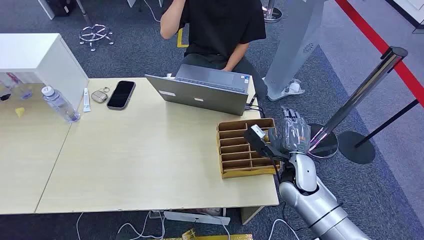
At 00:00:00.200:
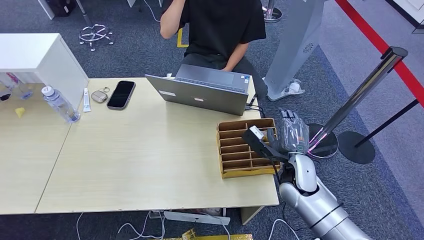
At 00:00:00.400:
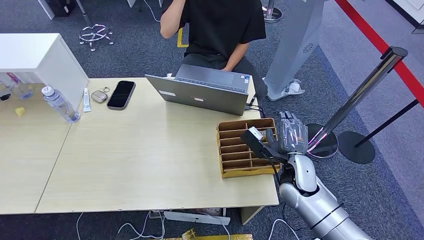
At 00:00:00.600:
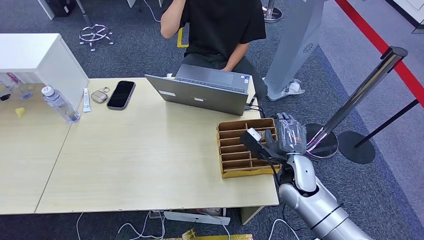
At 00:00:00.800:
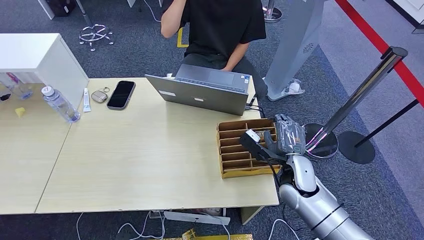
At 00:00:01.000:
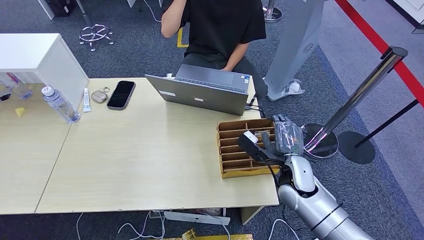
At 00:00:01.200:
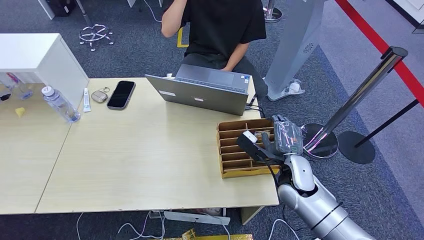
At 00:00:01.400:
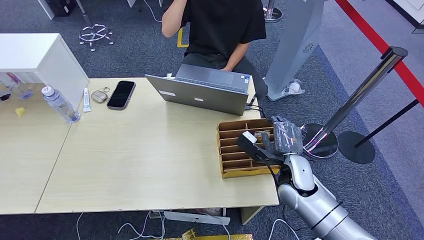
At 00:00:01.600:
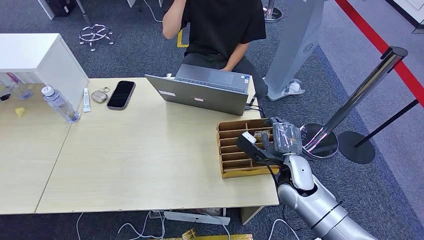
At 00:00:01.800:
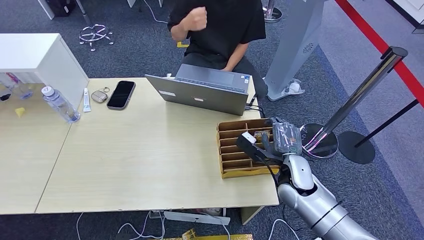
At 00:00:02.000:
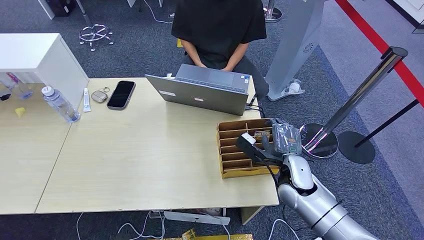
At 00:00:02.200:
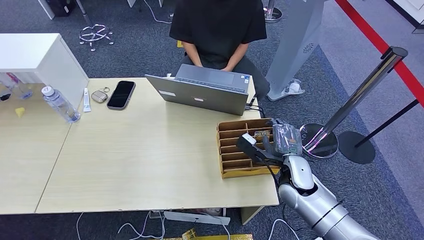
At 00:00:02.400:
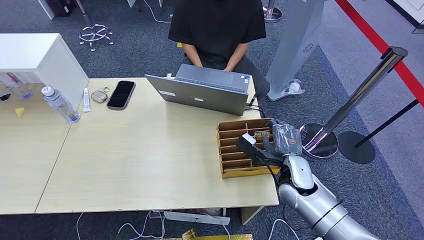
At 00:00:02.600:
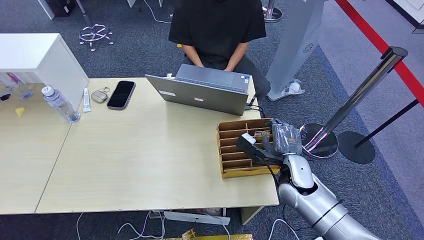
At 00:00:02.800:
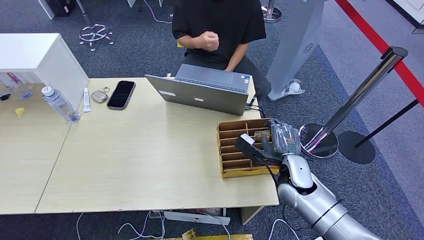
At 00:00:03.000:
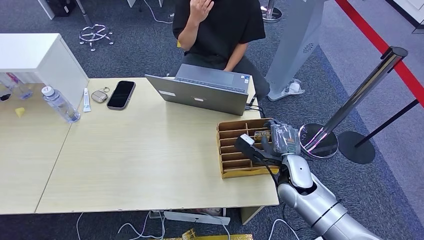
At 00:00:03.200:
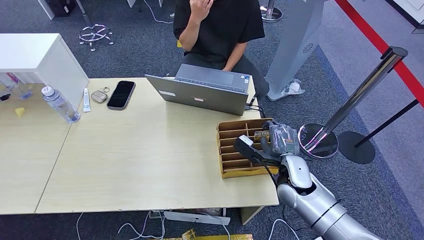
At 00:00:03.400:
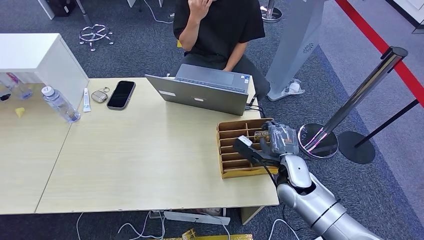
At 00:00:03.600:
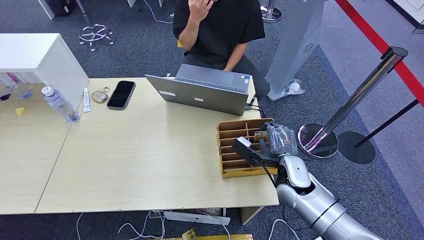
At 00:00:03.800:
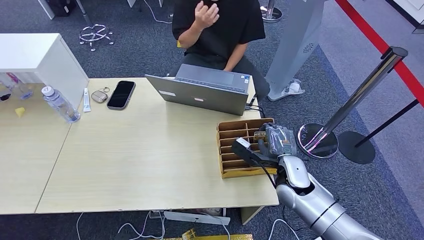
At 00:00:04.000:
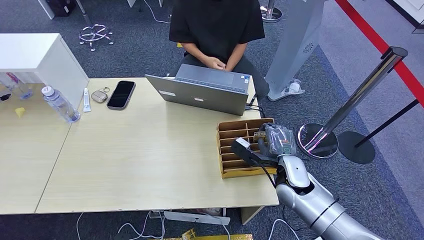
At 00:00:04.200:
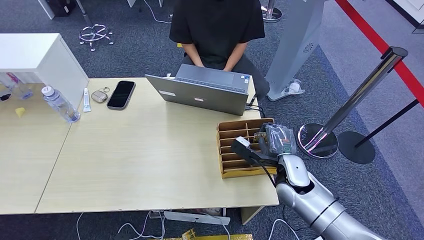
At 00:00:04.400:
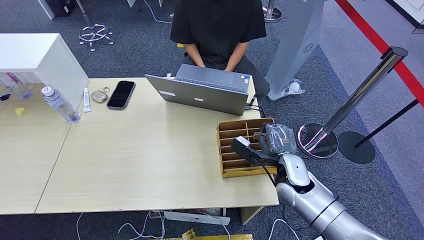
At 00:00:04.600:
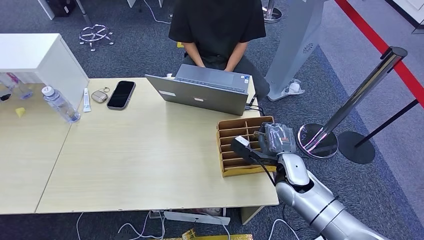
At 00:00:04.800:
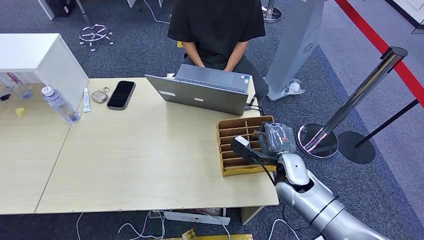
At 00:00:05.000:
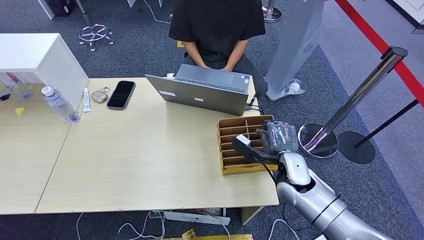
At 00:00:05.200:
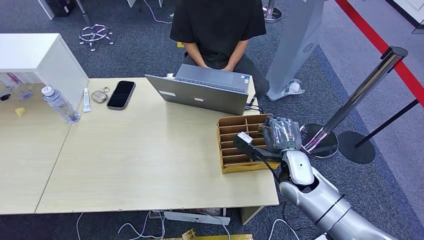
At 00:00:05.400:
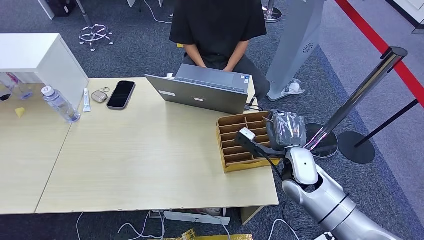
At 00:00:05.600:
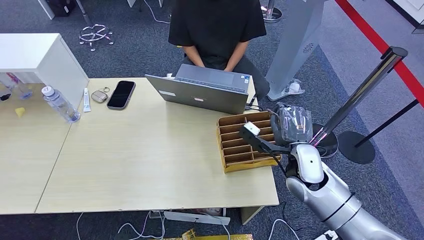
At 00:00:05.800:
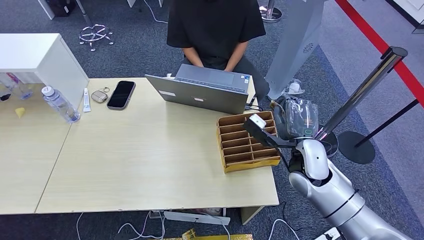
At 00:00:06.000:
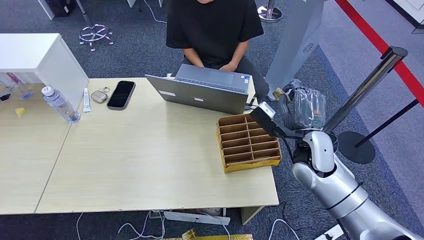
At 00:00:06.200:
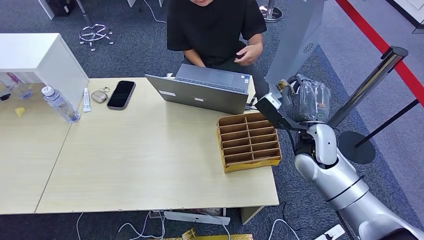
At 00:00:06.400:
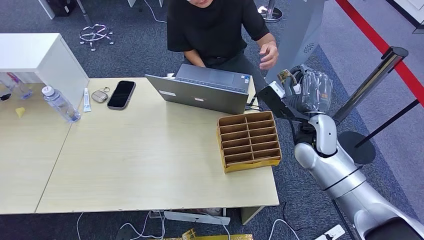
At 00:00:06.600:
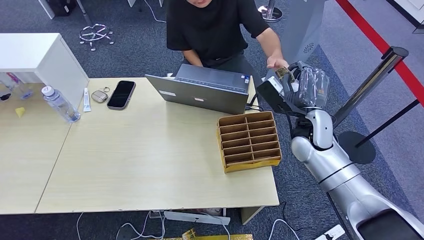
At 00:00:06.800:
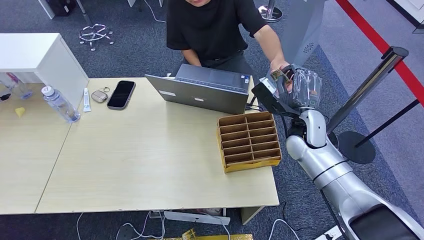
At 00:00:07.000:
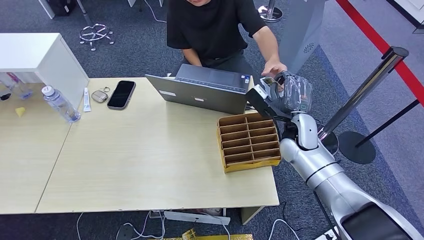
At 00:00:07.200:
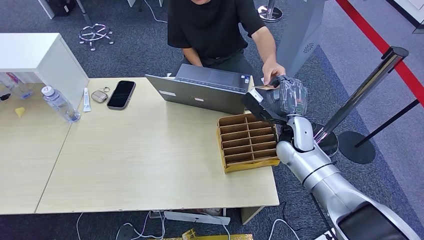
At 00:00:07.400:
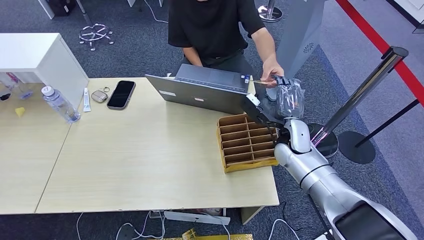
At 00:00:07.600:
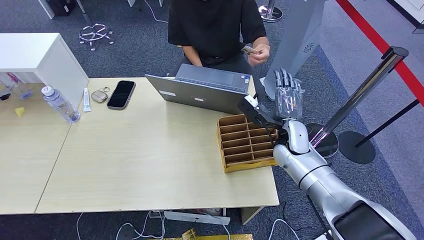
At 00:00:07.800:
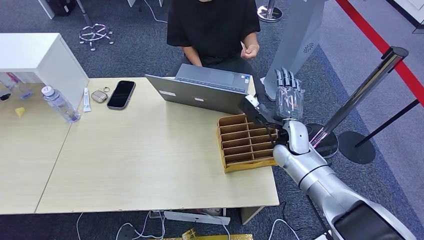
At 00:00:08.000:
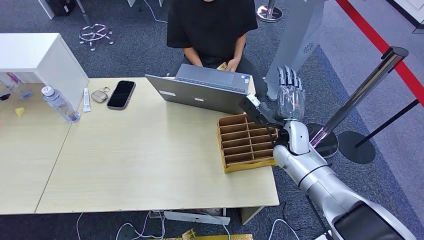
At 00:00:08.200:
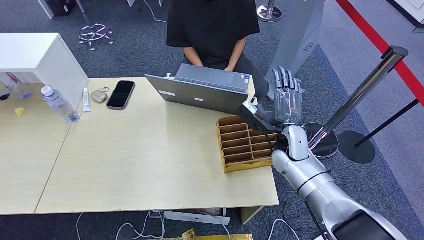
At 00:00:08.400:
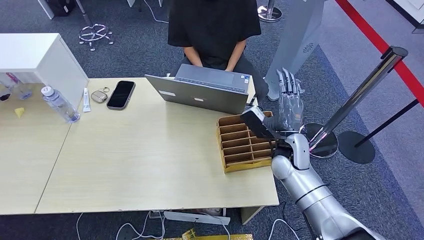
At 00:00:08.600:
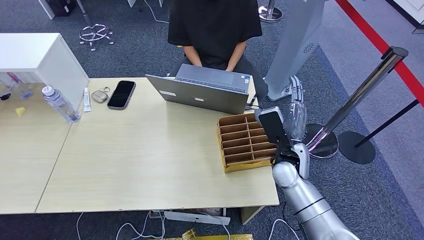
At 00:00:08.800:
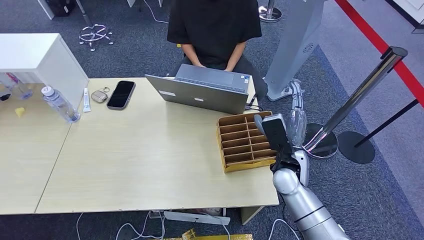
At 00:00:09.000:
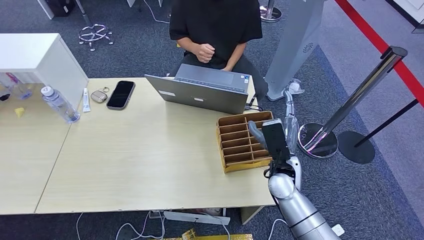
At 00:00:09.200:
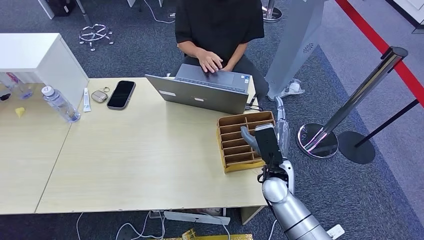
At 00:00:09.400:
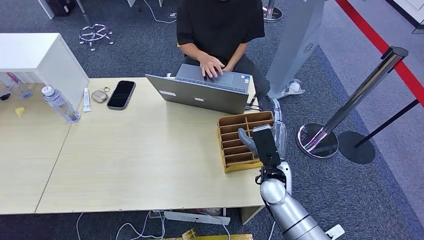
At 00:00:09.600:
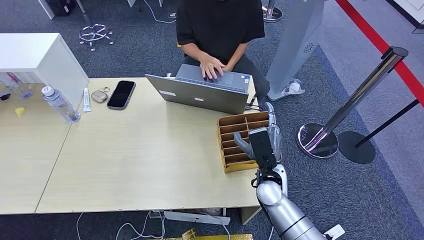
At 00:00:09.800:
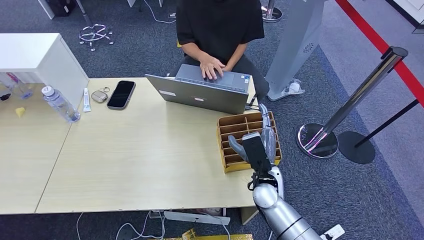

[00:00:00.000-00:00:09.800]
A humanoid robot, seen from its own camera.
Step, 00:00:00.000 to 00:00:06.000: Pick up the room card from the card holder.
Step, 00:00:06.200 to 00:00:09.800: Hand the room card to the target.
00:00:01.400 to 00:00:02.800: The two hands keep their place.
00:00:02.800 to 00:00:04.200: Both hands stay put.
00:00:04.200 to 00:00:05.600: The right hand moves upward, approximately 10 cm.
00:00:05.600 to 00:00:07.000: The right hand travels forward by some 10 cm.
00:00:07.000 to 00:00:08.400: The right hand shifts some 10 cm backward.
00:00:08.400 to 00:00:09.800: The right hand travels downward and to the left by some 10 cm.
